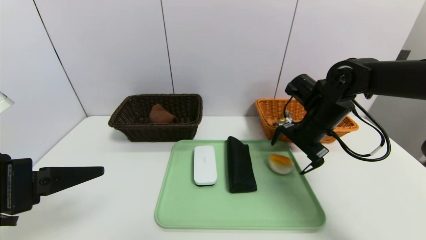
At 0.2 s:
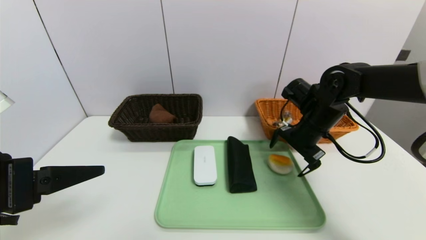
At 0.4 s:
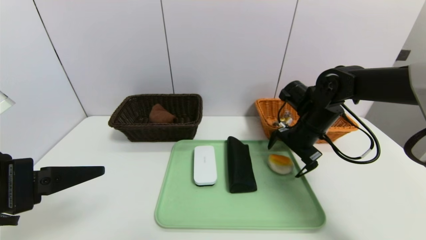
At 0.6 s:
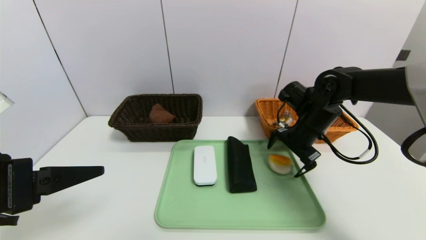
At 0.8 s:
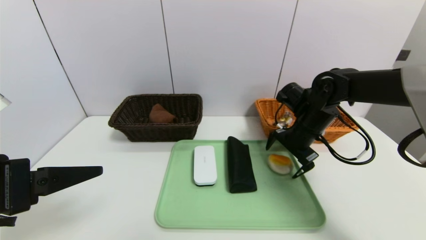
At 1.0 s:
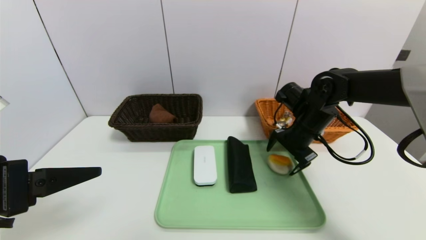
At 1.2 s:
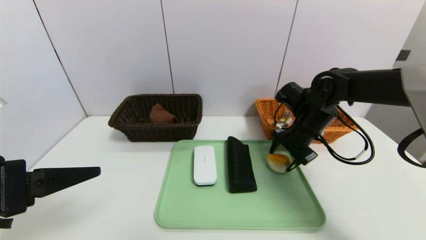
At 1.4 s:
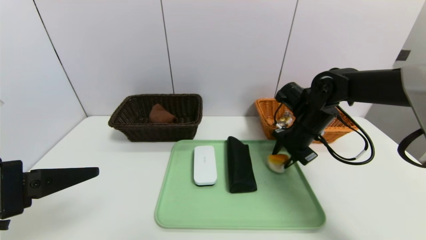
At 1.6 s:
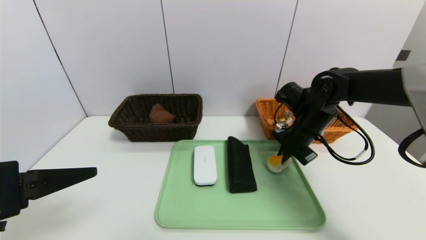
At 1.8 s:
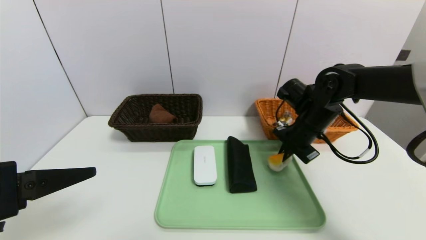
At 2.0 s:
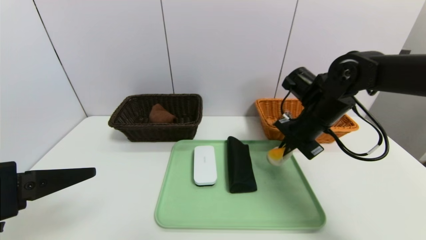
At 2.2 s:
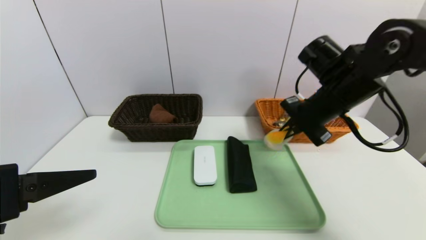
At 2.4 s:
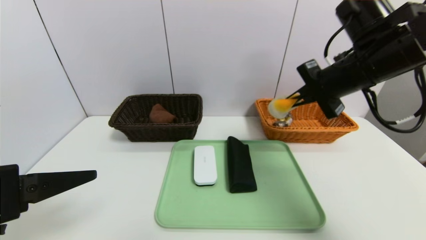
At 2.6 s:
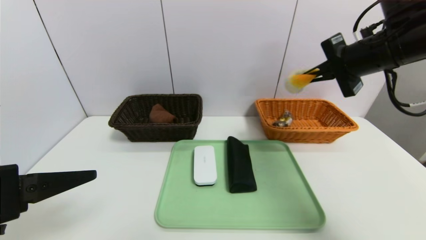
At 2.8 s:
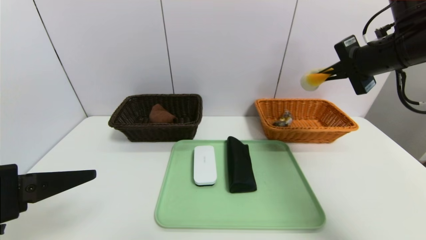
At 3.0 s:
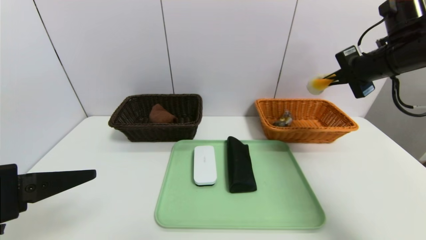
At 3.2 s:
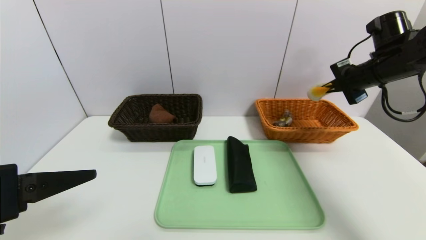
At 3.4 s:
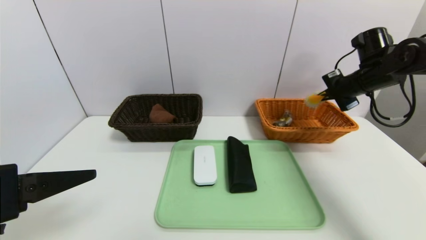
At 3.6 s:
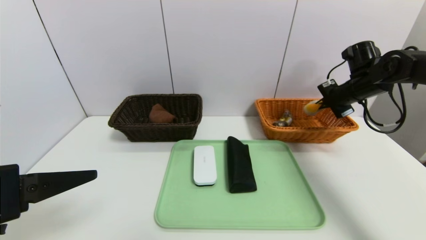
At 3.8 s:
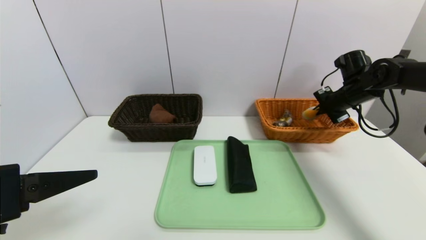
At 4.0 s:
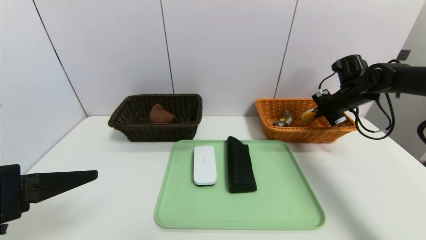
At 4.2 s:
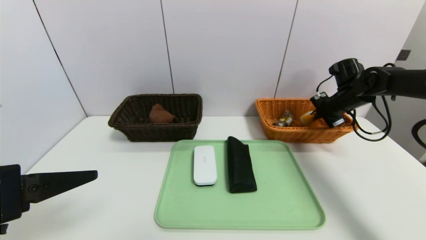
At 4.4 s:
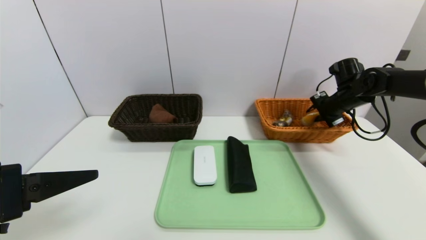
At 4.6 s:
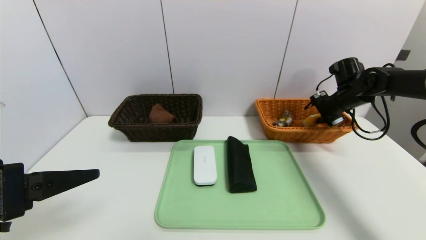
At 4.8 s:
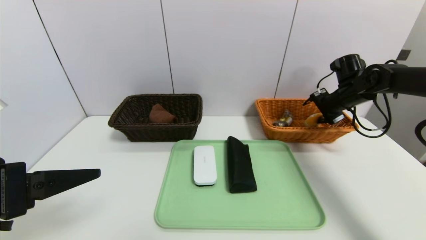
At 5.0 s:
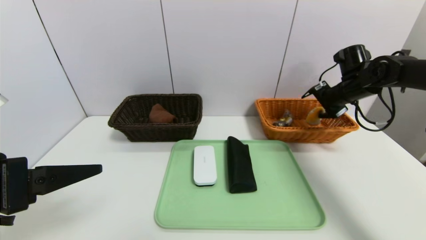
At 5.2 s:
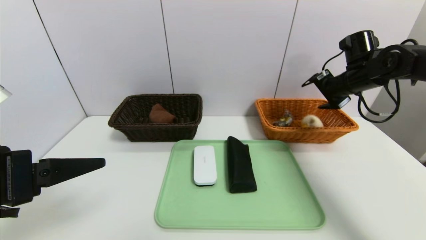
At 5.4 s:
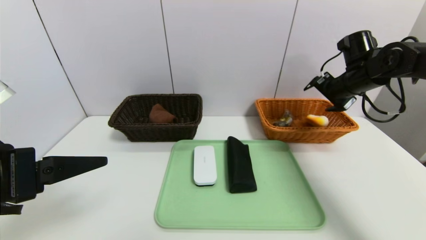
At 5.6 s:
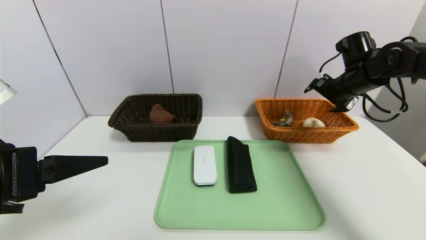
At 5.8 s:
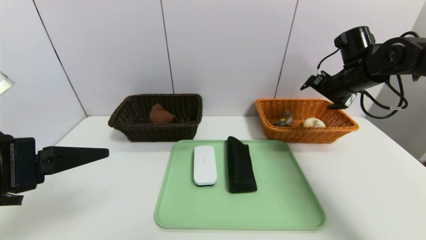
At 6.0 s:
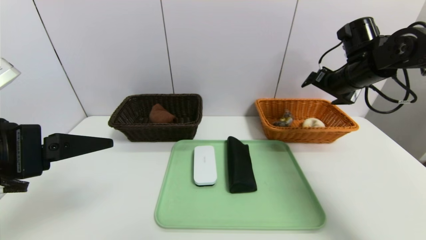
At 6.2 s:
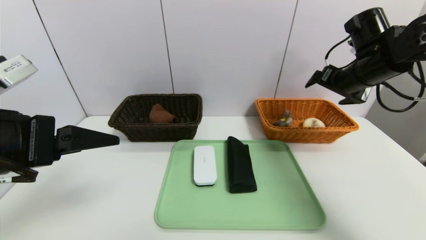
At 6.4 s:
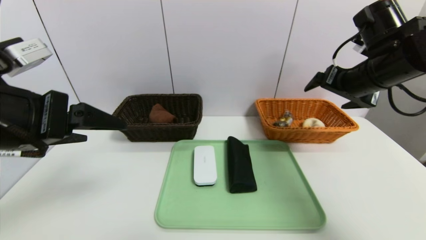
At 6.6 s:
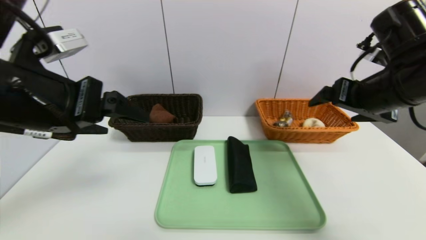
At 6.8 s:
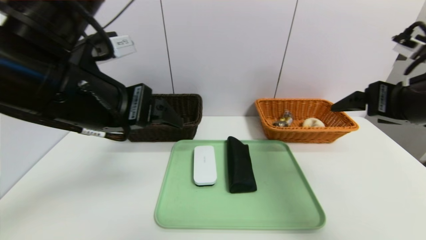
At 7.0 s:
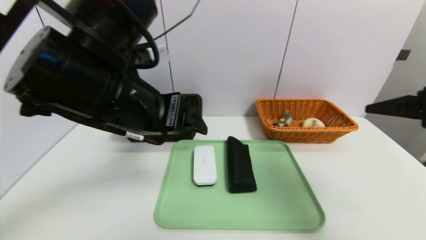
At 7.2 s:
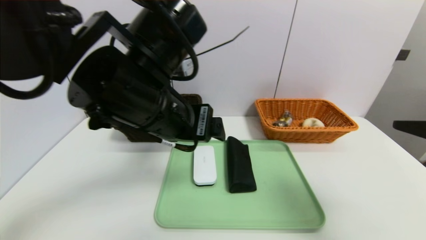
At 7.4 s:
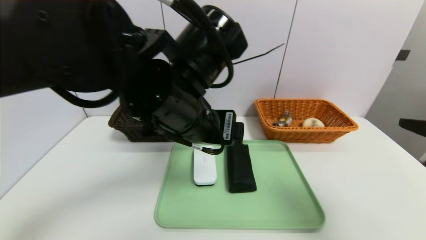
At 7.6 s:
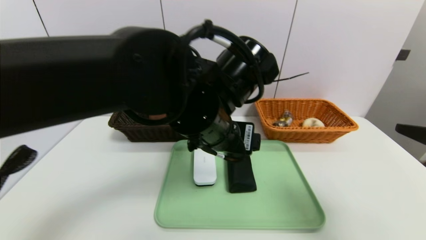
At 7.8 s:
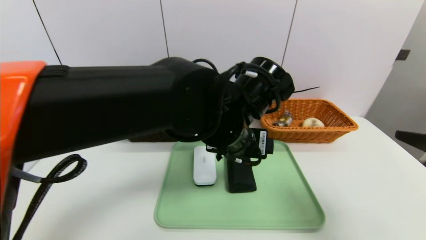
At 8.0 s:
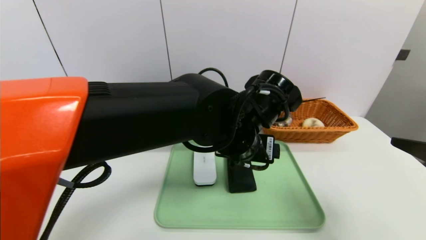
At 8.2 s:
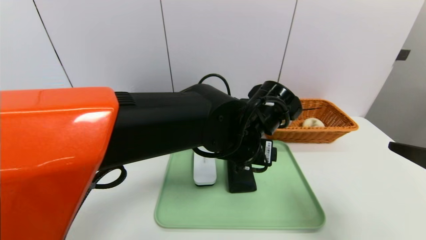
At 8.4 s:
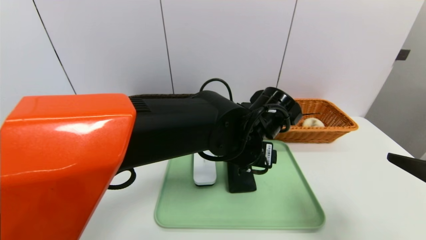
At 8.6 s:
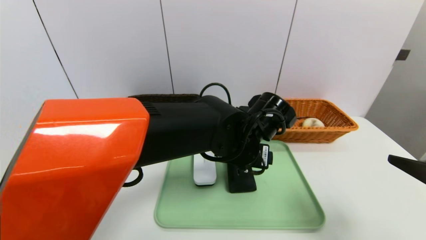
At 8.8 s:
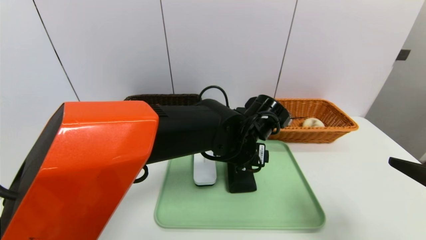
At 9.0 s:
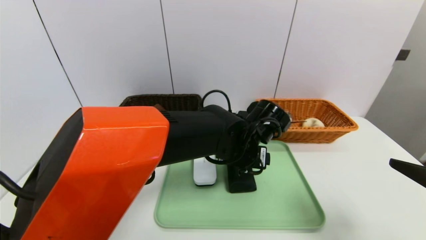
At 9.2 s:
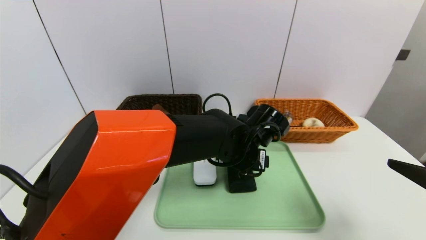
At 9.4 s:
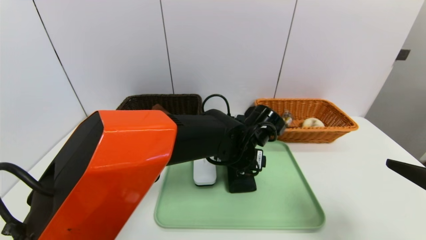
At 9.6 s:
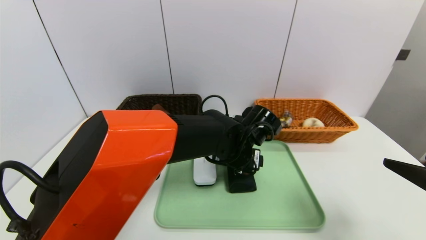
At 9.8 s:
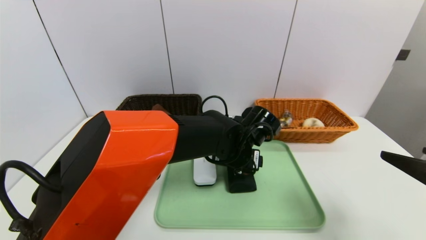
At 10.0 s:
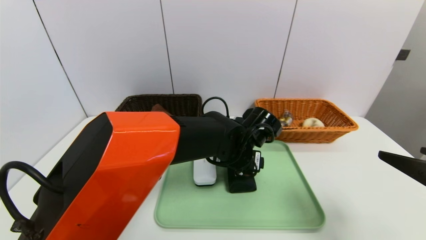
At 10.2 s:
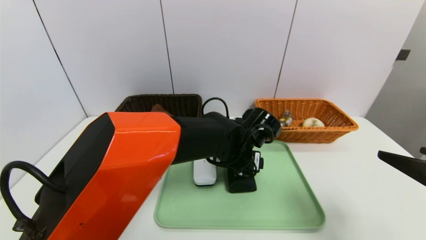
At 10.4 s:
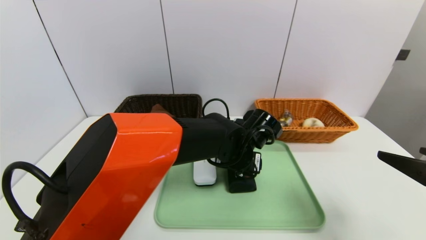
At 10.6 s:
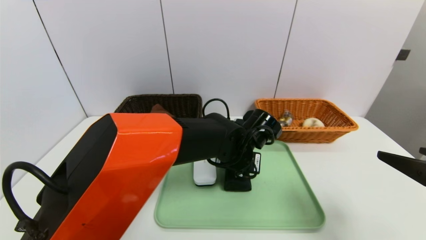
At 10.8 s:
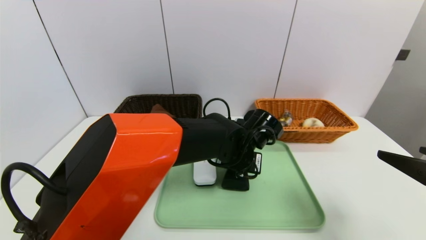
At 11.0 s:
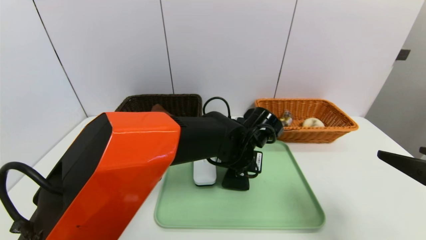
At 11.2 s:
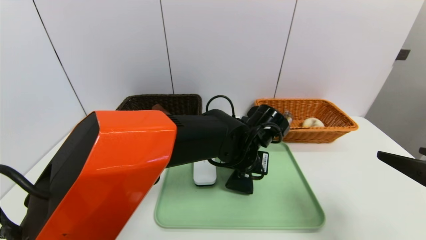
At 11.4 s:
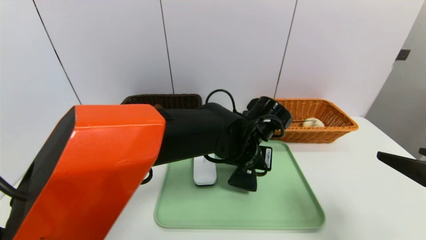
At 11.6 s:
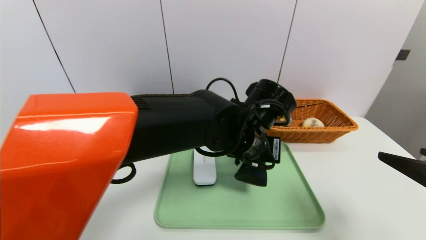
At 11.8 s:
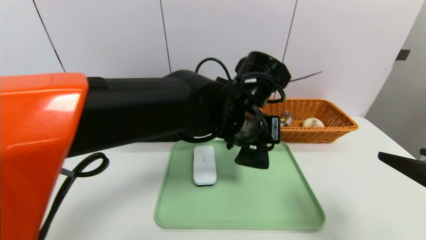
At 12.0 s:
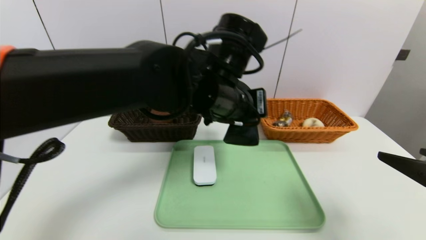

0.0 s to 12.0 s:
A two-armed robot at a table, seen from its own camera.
Task of the whole recording: place the food in the right basket with the right gripper, and place the non food items in the left basket with the left gripper.
Step, 0.0 to 5.4 s: Grasp the egg yolk pastry and put it in the right basket.
0.0 to 1.6 s: The right gripper closes.
1.6 to 3.0 s: The right gripper heads upward and to the right, covering about 20 cm.
3.0 to 4.4 s: The right gripper shifts roughly 15 cm downward and forward.
4.4 to 6.0 s: The right gripper goes about 10 cm upward, backward and to the left, and opens its fingers.
6.0 to 7.6 s: The right gripper goes roughly 30 cm backward. The left gripper is displaced to the right and forward by approximately 25 cm.
7.6 to 9.0 s: The left gripper heads downward, to the right and forward, covering roughly 15 cm.
9.0 to 10.4 s: There are only small adjustments of the grippers.
10.4 to 12.0 s: The left gripper goes roughly 15 cm upward, and closes up.

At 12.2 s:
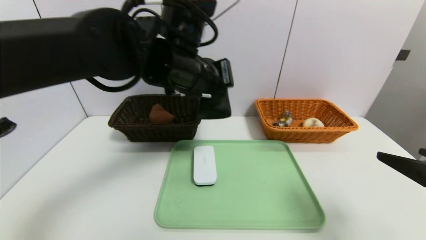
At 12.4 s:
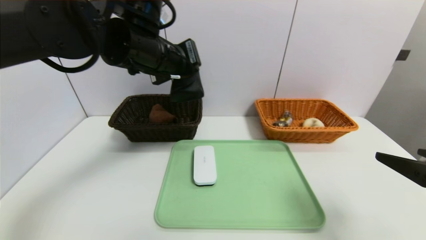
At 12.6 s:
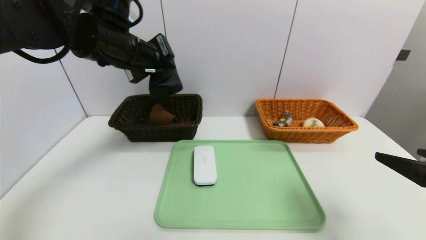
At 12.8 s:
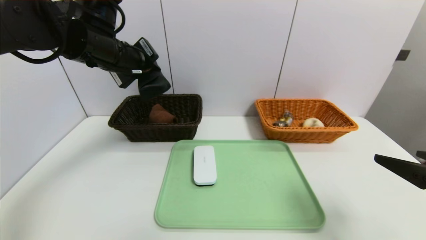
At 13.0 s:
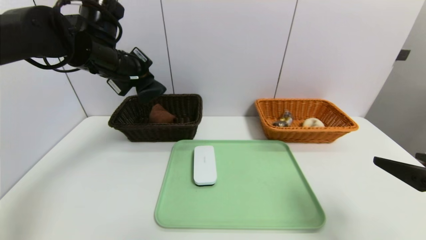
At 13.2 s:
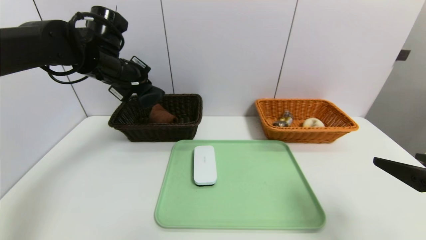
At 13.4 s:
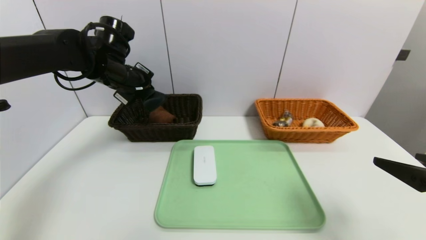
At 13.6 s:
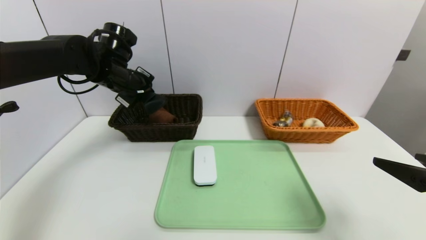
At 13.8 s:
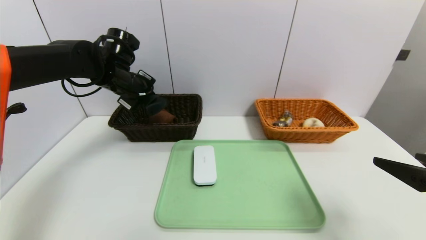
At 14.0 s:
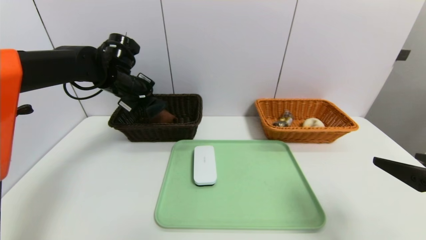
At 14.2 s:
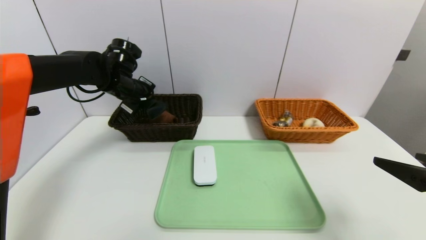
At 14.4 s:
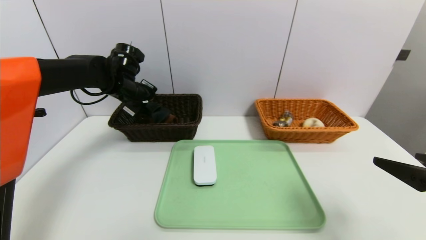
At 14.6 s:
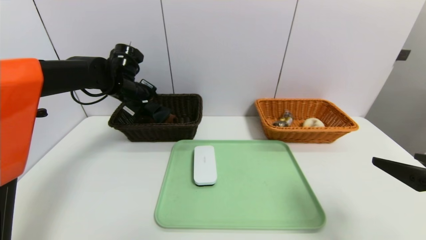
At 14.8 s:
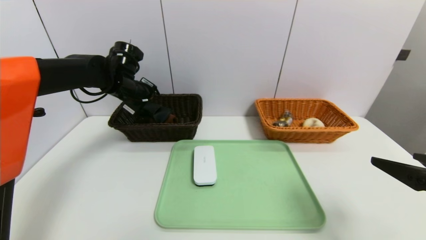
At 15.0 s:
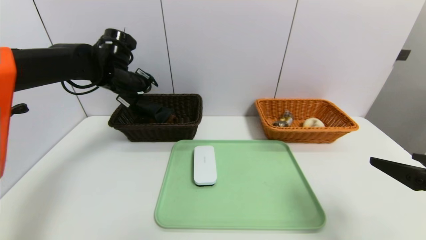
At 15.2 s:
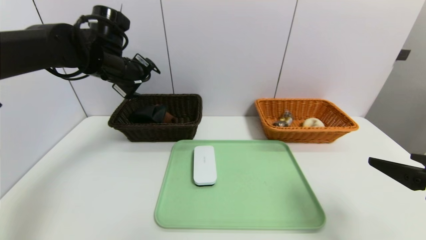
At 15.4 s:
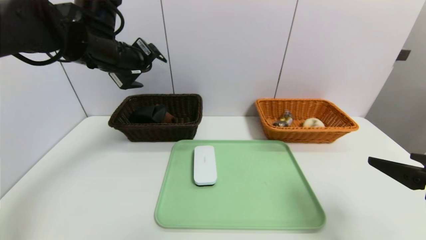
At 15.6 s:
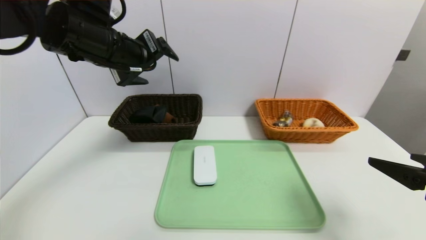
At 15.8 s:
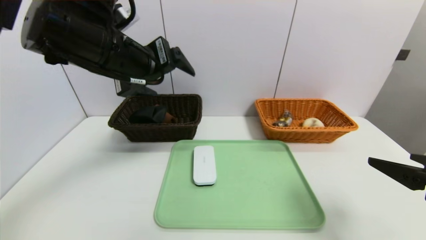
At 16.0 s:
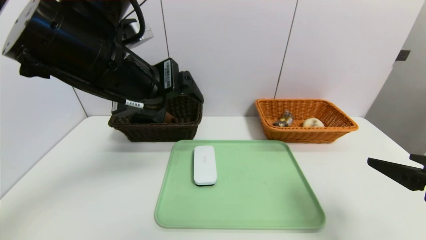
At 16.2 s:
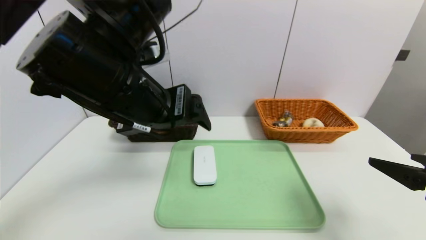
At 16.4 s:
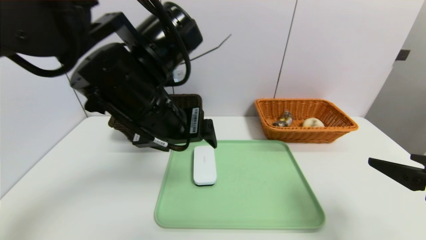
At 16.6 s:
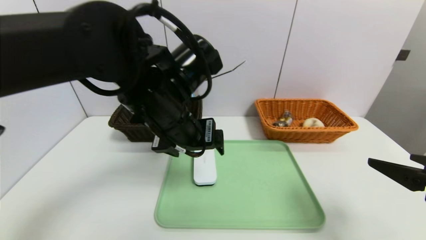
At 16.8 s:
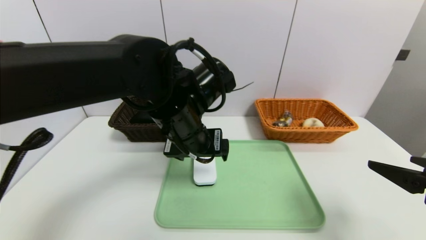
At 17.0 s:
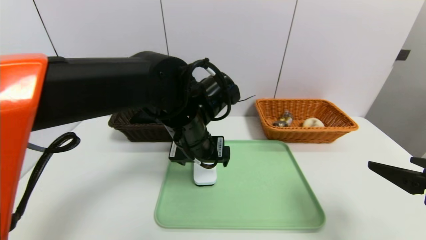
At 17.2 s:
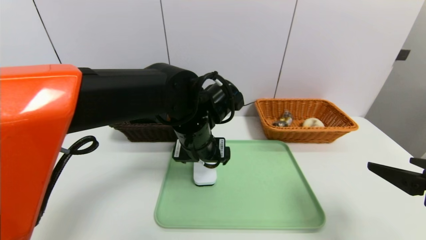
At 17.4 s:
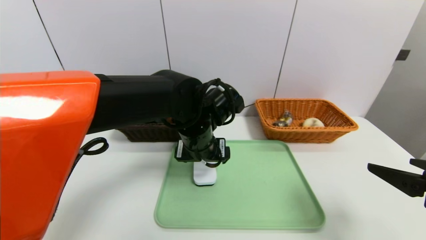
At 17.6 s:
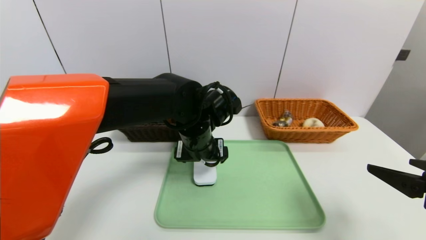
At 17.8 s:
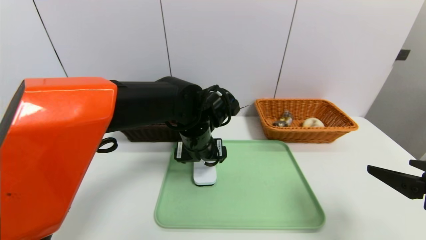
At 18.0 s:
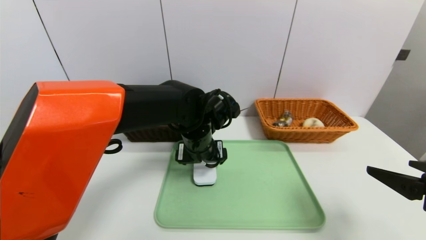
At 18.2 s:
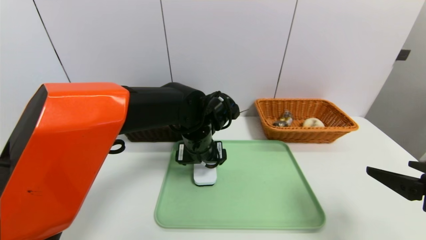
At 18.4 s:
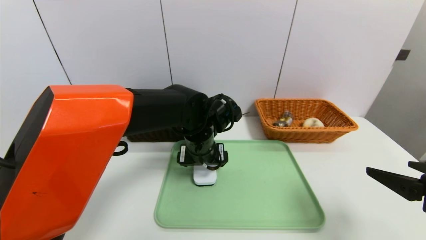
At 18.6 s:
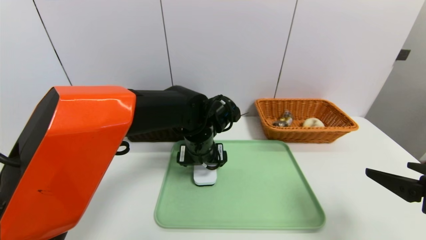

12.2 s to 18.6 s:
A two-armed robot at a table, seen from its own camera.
Task of the whole recording: place the food in the right basket with the right gripper, and place the non food items in the left basket with the left gripper.
Step, 12.2 to 15.0 s: Grasp the glasses case and put it in the left basket.
12.2 to 13.8 s: The left gripper is displaced to the left and forward by about 20 cm.
13.8 to 15.4 s: The left gripper goes some 10 cm upward and backward, and opens its fingers.
15.4 to 17.0 s: The left gripper goes about 20 cm to the right, downward and backward.
17.0 to 18.6 s: The left gripper travels downward by some 5 cm.
